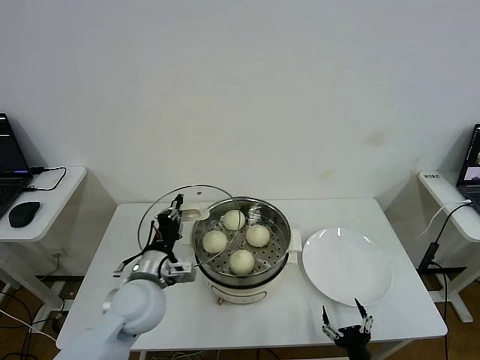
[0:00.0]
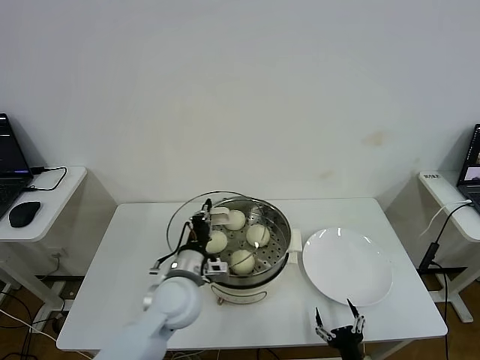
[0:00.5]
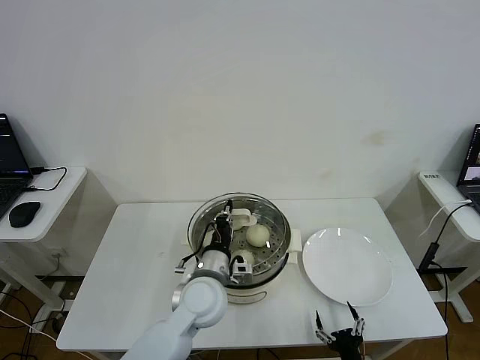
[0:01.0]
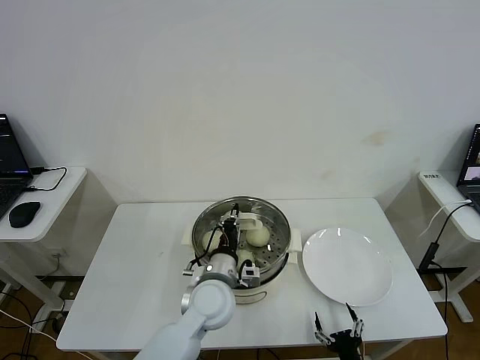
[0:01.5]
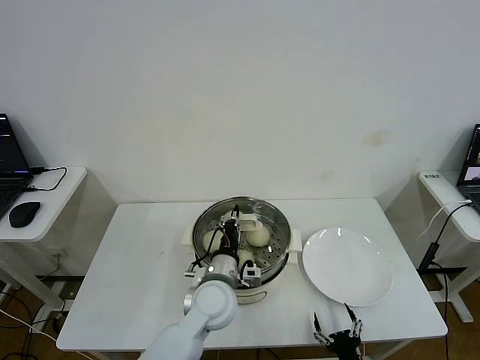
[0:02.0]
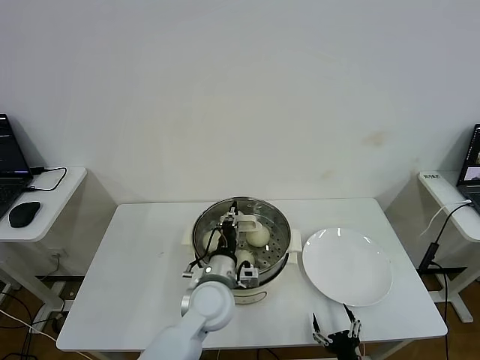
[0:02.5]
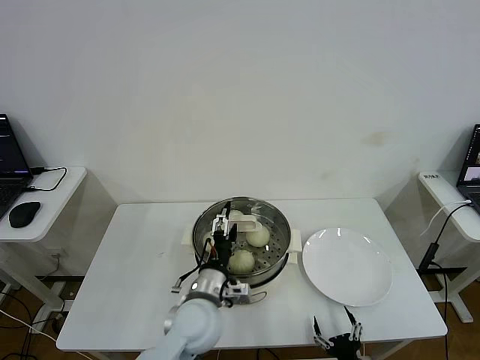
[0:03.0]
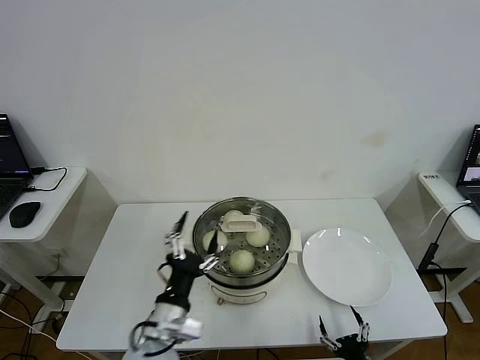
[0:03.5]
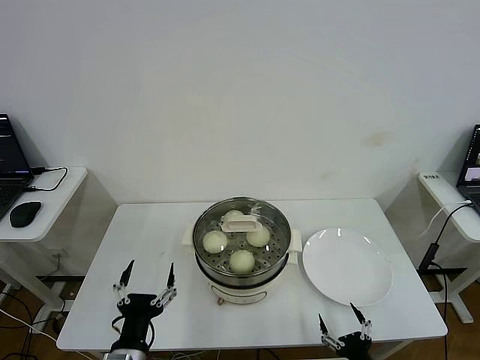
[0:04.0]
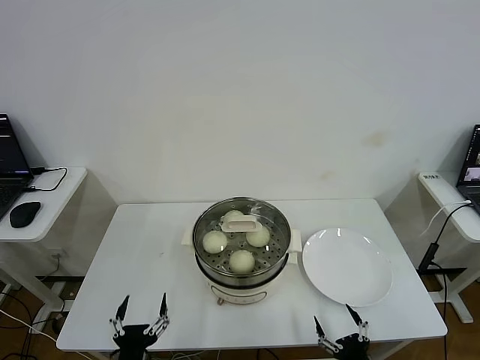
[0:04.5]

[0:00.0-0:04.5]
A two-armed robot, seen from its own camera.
Step, 0:00.0 to 0:02.5: Place the pot lid on the steamer with left gripper.
0:00.0 to 0:02.0: The left gripper is displaced to the right by some 15 cm.
0:02.0 to 0:04.5: The right gripper heads upward, covering roughly 5 cm; the left gripper travels backward and to the left by approximately 30 cm, and opens.
